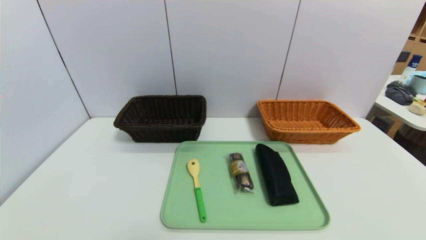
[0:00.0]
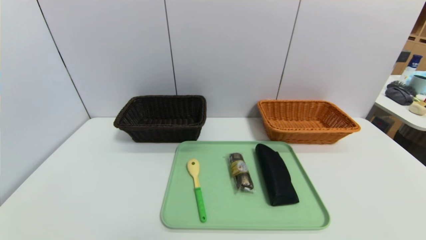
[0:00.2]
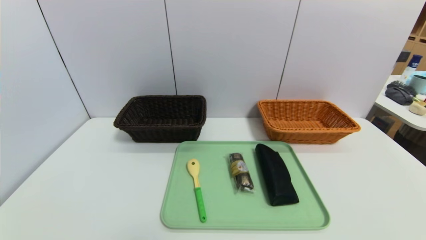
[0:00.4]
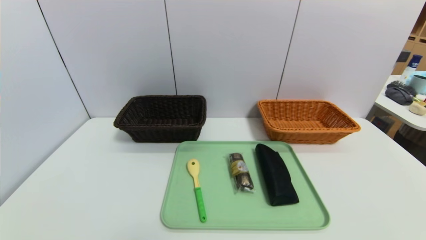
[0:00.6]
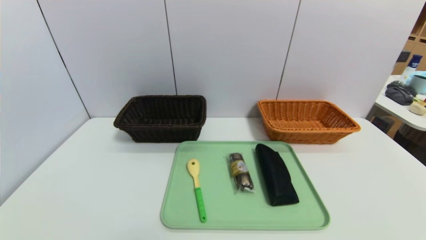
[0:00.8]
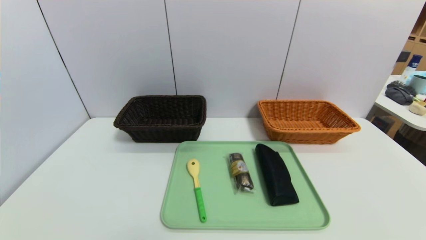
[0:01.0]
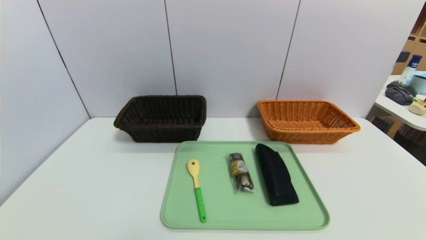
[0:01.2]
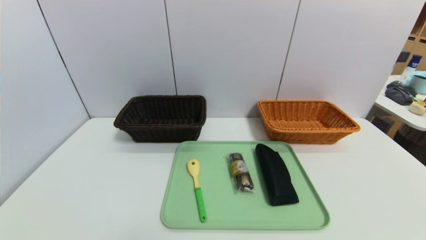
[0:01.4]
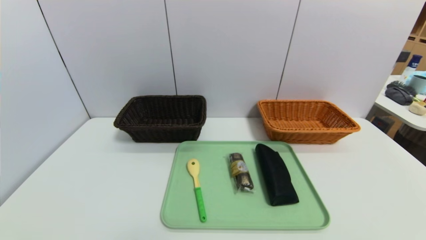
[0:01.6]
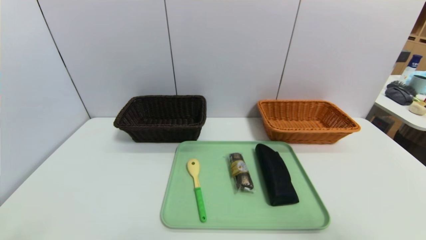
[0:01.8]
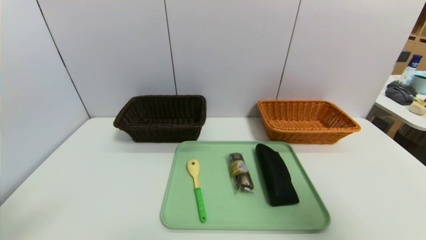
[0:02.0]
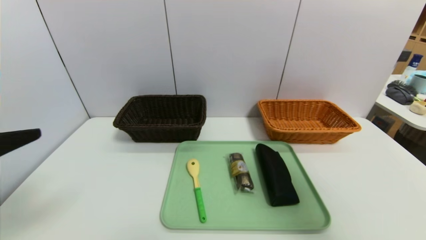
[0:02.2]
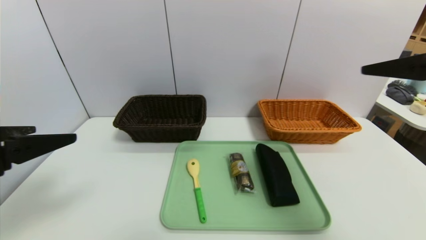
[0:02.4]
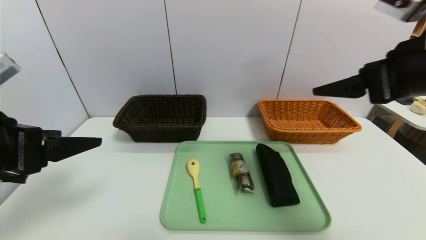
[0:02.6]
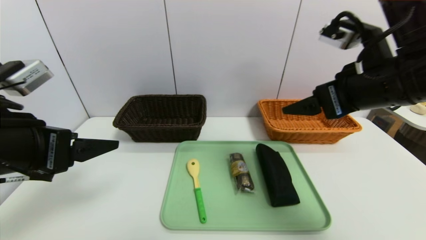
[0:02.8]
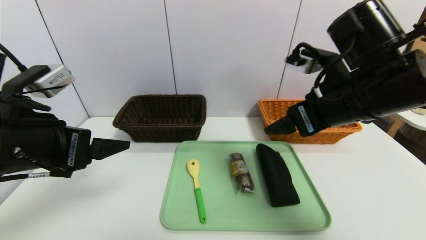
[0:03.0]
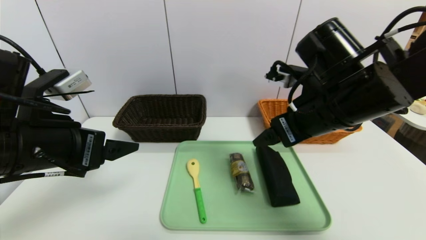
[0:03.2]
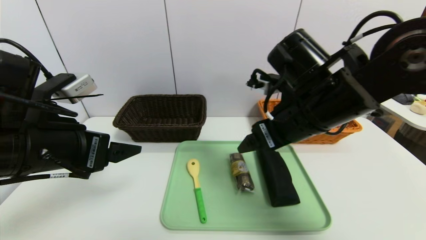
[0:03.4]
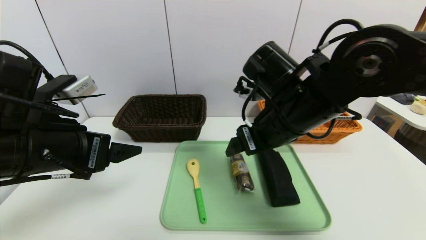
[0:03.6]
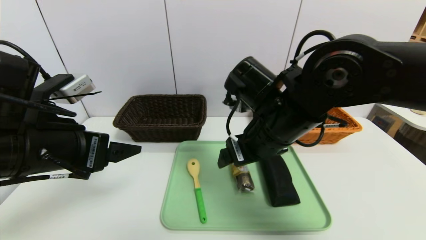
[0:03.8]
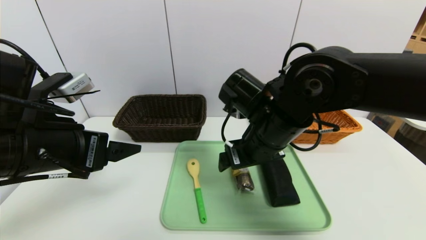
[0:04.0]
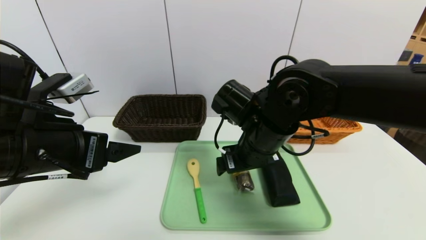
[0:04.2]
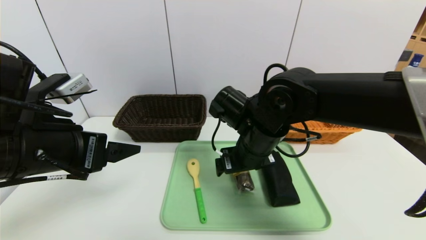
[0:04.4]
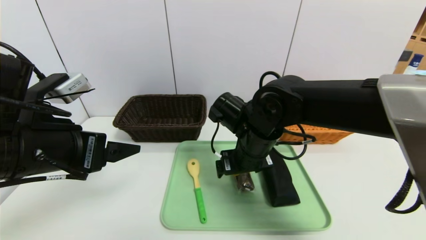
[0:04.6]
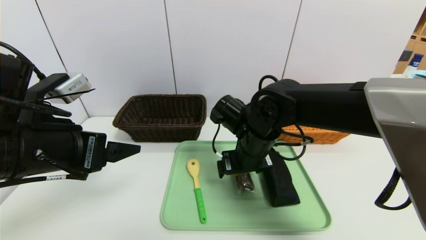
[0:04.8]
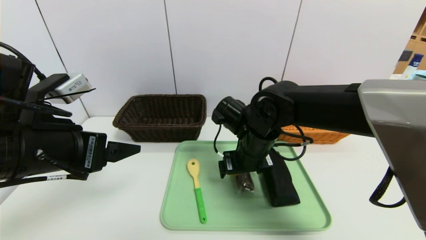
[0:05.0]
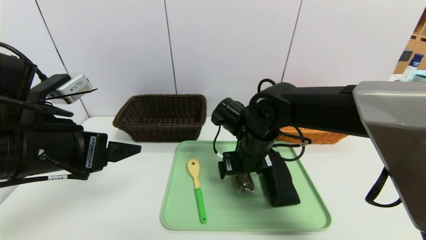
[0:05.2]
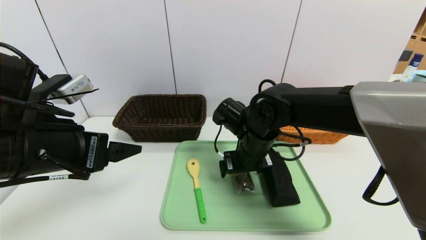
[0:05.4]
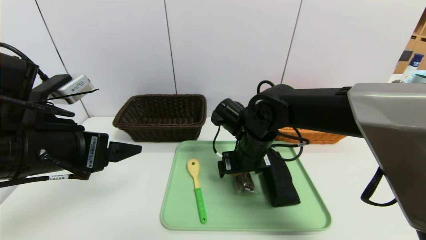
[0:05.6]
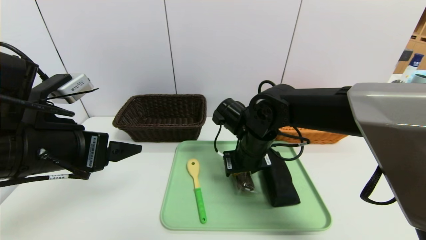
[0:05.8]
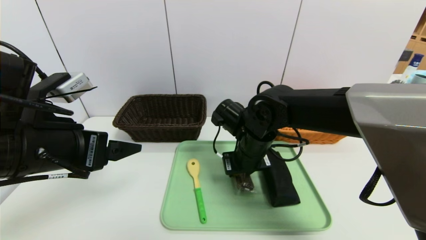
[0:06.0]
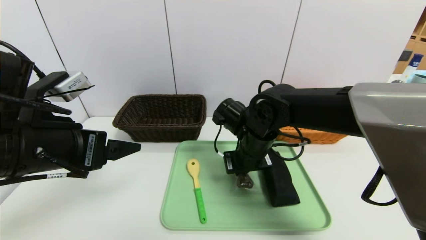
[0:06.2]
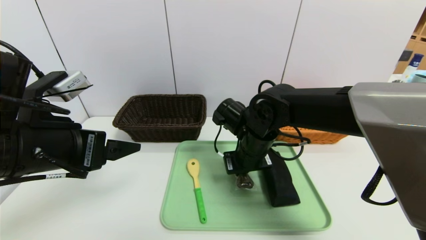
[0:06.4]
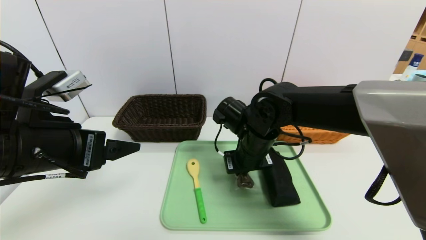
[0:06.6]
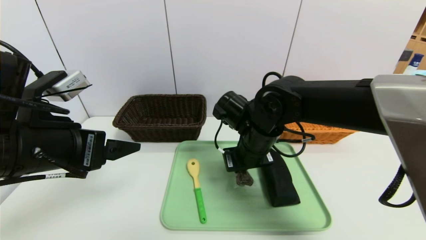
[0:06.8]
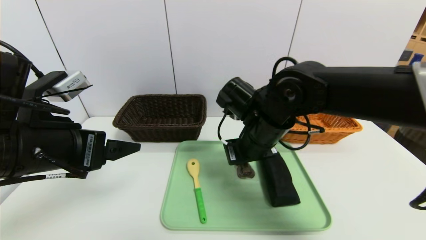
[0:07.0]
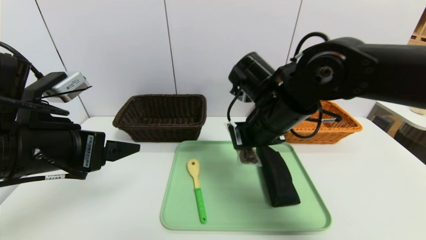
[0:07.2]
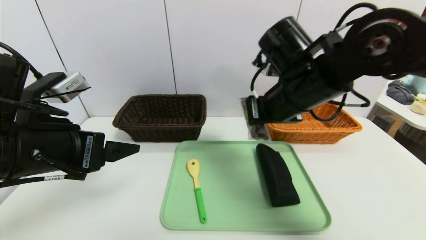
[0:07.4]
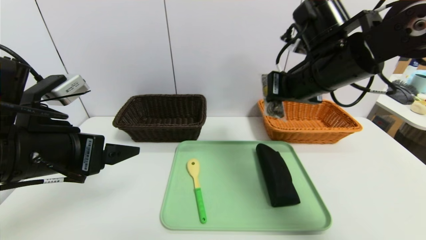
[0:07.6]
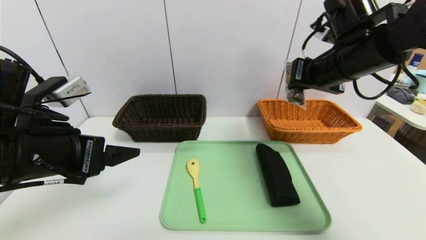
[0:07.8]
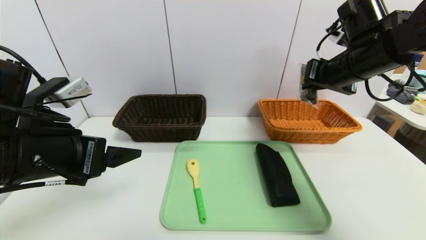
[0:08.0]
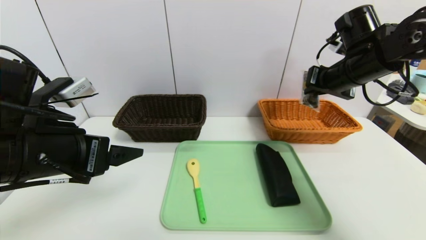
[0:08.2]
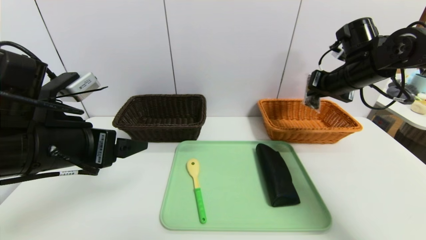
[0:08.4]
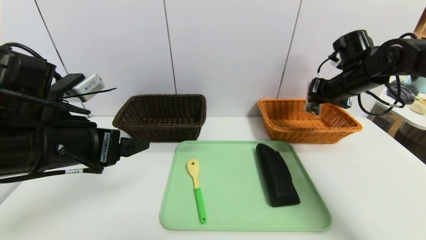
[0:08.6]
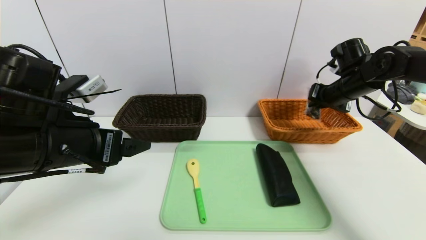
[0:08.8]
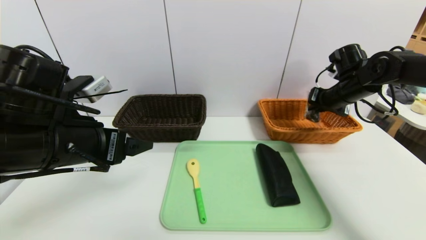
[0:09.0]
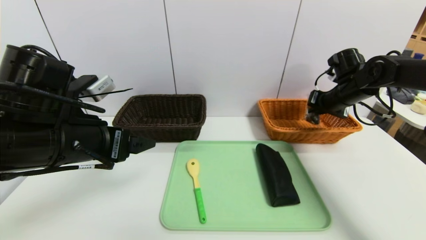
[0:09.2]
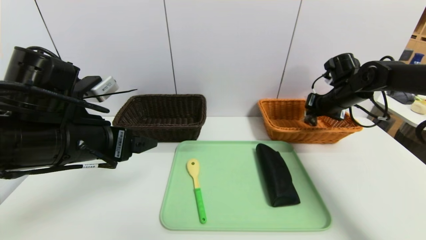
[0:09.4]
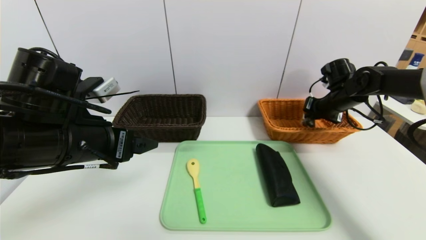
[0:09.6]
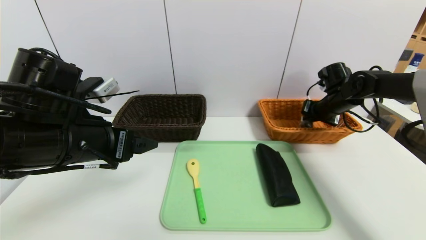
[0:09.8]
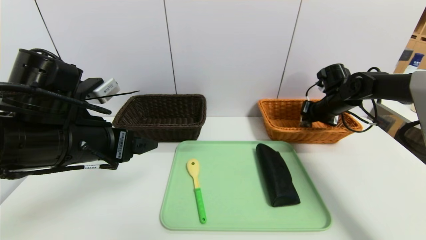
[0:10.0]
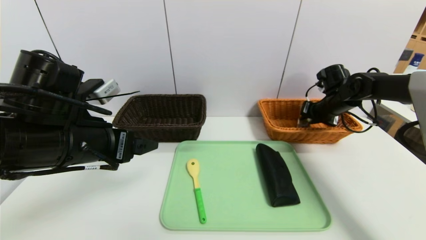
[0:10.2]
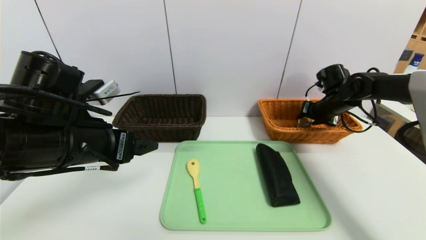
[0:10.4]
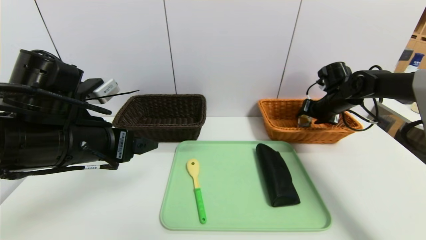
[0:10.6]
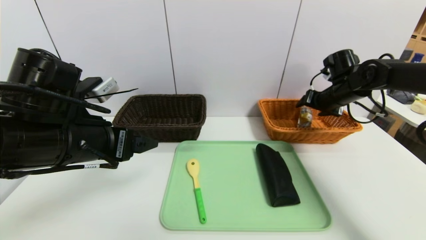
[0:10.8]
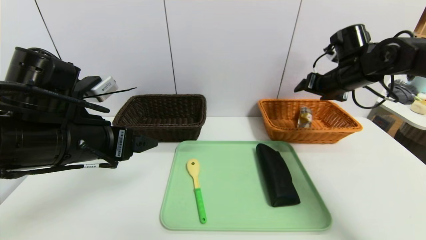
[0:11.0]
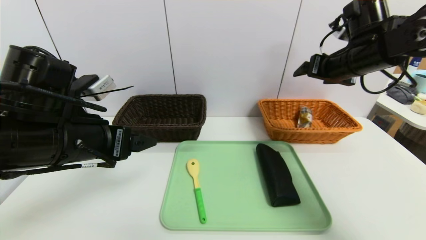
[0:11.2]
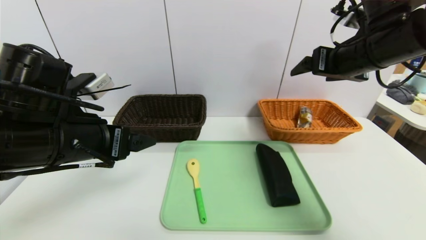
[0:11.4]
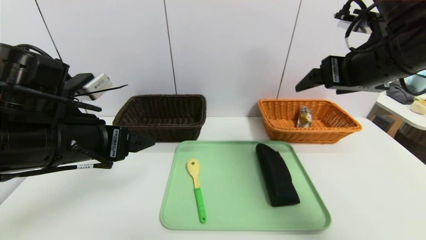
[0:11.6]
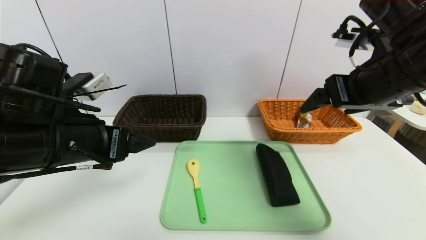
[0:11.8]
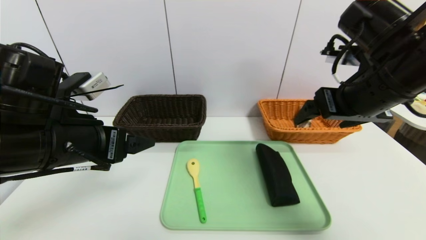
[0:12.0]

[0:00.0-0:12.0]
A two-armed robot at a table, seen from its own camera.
Task of the whole recording: place the food in the right basket with the right gripper, and place the non food items in the left basket with the left gripper.
Step, 0:00.0 to 0:10.8: Grasp the chocolate and put it in the right basket.
0:01.6 to 0:03.0: The left gripper shifts some 20 cm forward. Meanwhile the right gripper travels forward and to the left by roughly 30 cm.
0:03.0 to 0:04.4: The right gripper goes approximately 15 cm to the left and downward.
0:04.4 to 0:06.0: The right gripper closes its fingers.
0:06.0 to 0:07.6: The right gripper is displaced upward and to the right by approximately 20 cm, and closes.
0:07.6 to 0:09.0: The right gripper is displaced to the right, forward and downward by some 20 cm.
0:09.0 to 0:10.4: The right gripper shifts roughly 5 cm downward, and opens.
0:10.4 to 0:12.0: The right gripper moves backward, upward and to the left, approximately 30 cm, and opens its fingers.

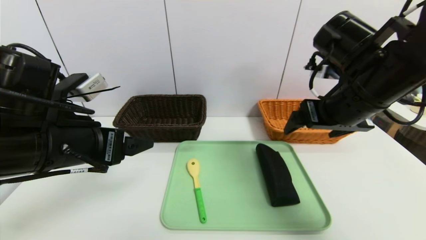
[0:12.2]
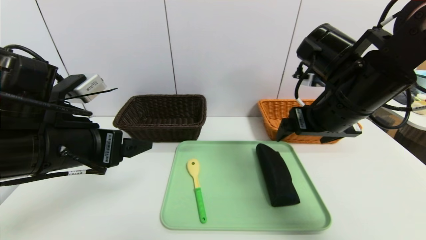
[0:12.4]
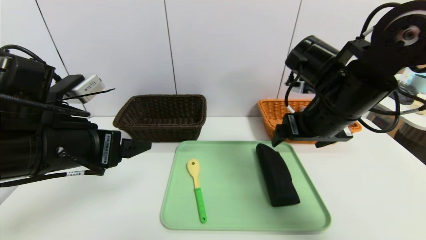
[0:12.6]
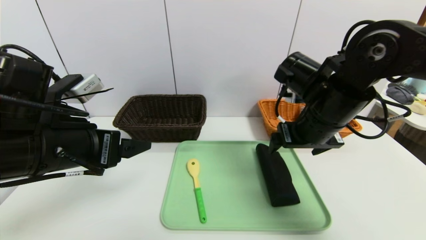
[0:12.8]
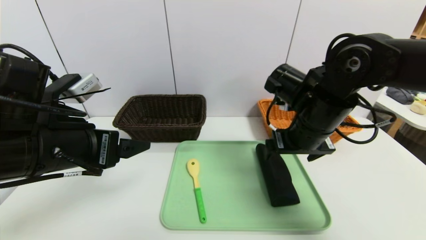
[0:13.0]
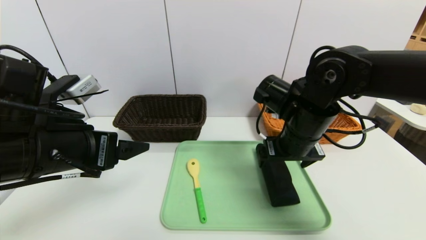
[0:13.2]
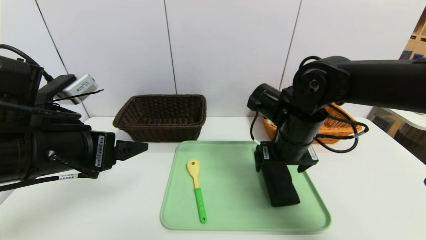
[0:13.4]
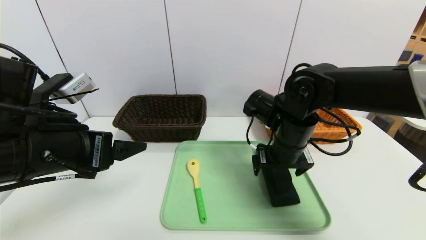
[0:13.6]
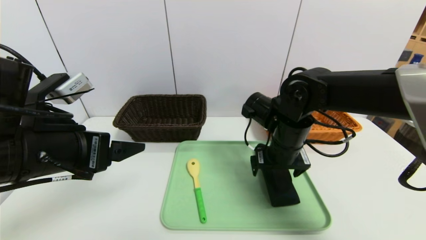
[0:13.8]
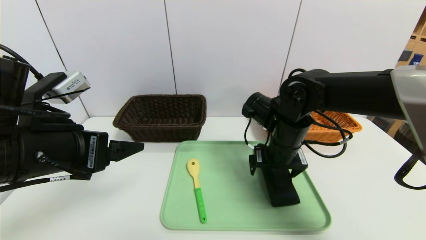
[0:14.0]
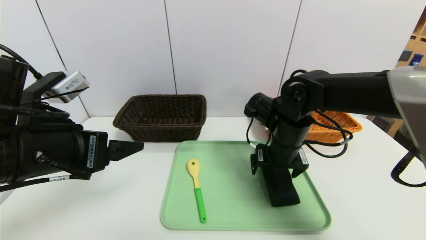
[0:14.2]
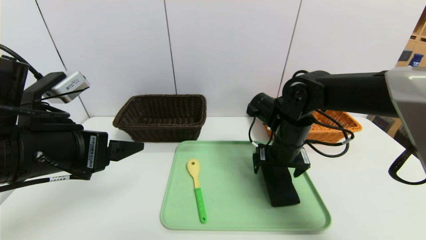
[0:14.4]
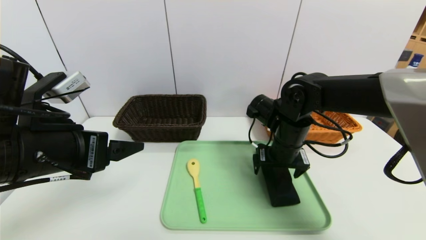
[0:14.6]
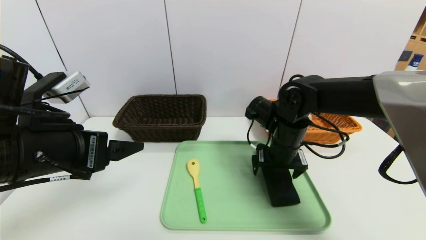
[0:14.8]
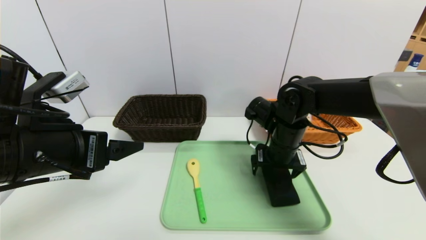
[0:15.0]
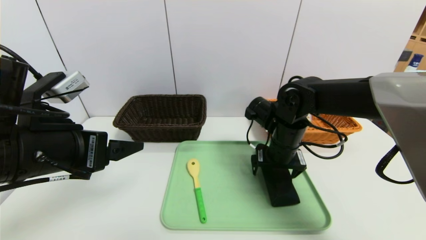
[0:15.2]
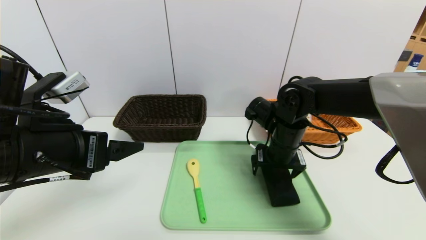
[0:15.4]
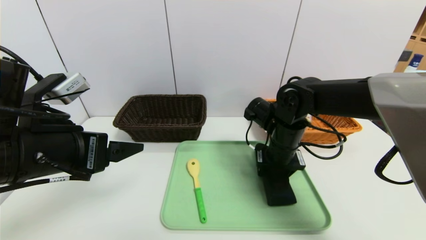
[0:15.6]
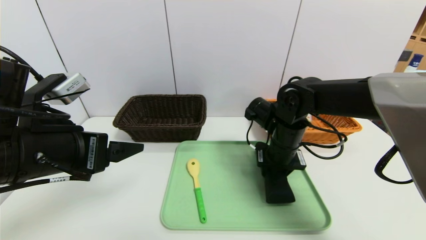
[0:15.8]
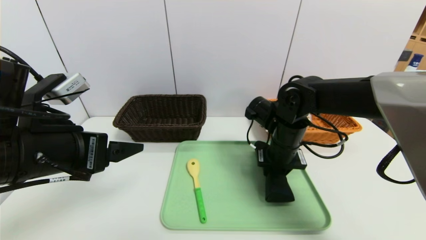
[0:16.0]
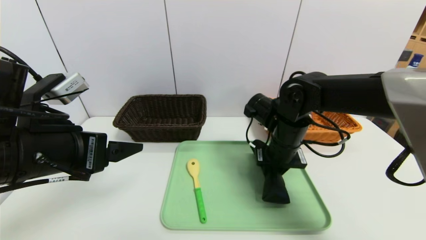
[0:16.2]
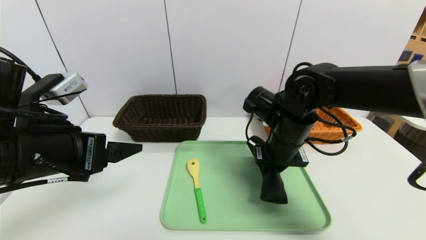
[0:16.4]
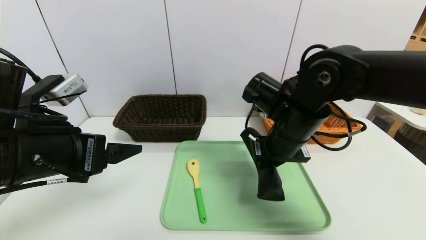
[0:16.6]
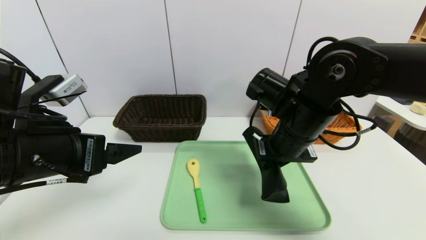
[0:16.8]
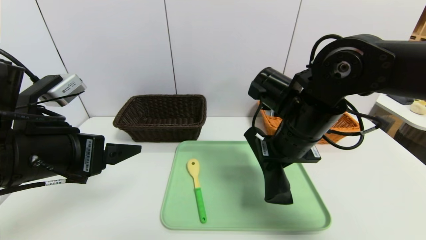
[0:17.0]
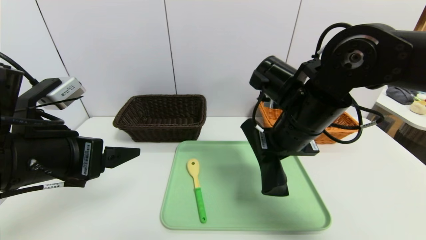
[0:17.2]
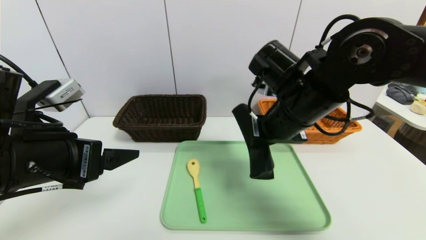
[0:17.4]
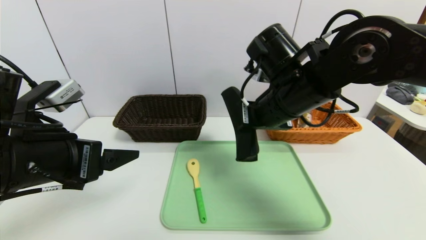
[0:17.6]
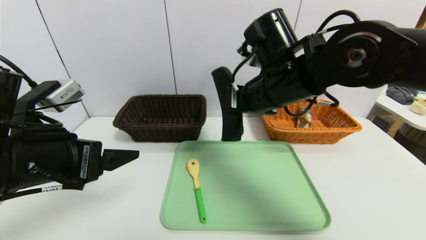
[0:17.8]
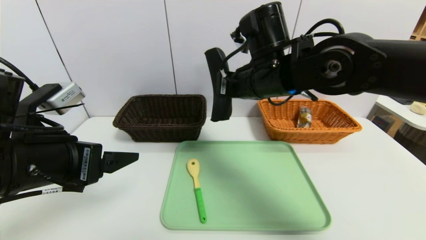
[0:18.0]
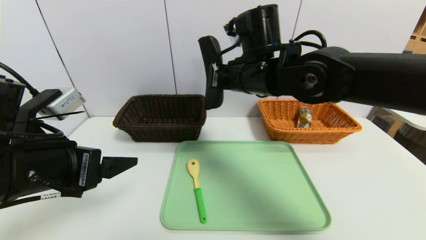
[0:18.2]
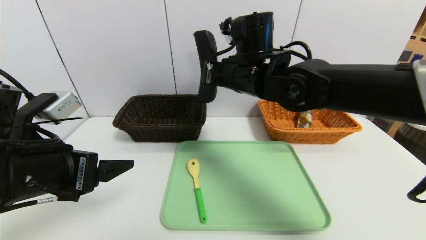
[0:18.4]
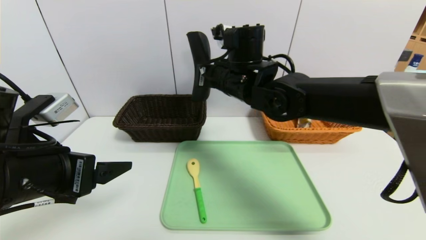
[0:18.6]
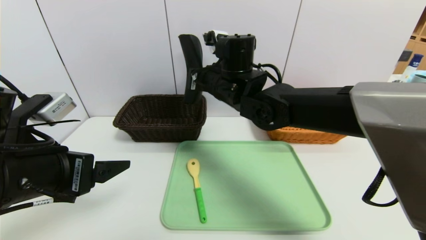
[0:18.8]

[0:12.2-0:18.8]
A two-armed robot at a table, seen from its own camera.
Task of the whole recording: place the food in the right basket with the right gripper, and place the non food items in the left basket with the left gripper.
0:12.2 to 0:13.8: The right gripper moves downward and to the left, about 15 cm.
0:13.8 to 0:15.4: The grippers move only a little.
0:15.4 to 0:17.2: The right gripper shifts about 10 cm upward and backward, and closes its fingers.
0:17.2 to 0:18.8: The right gripper shifts roughly 15 cm to the left and forward.
